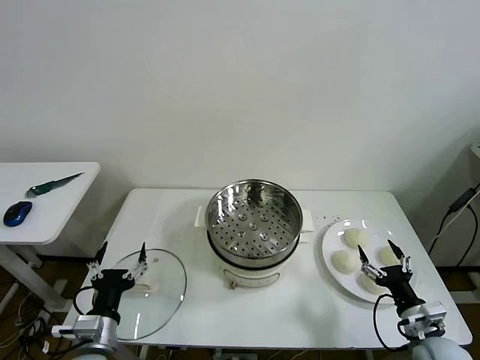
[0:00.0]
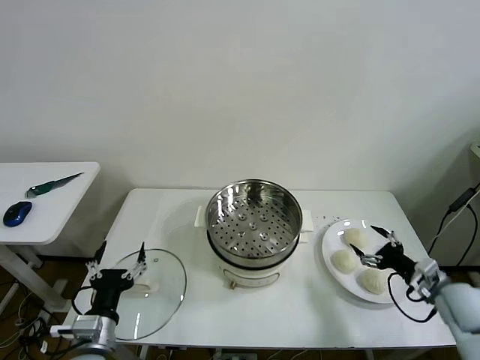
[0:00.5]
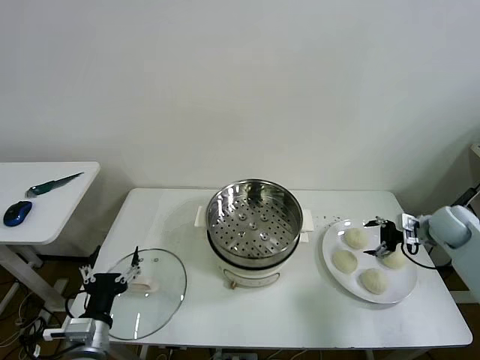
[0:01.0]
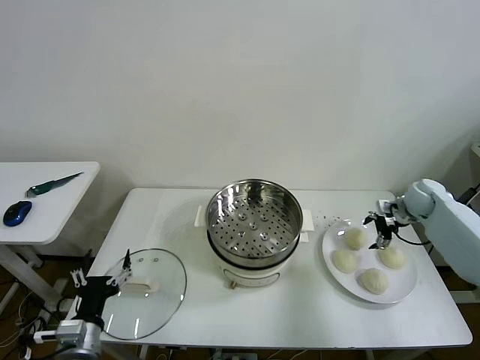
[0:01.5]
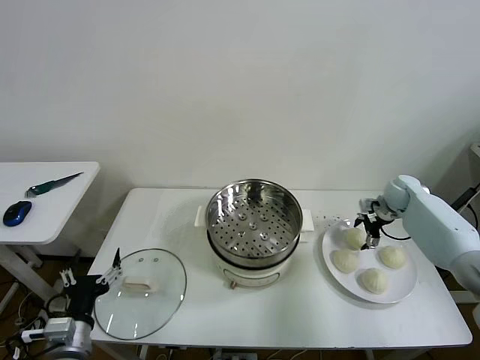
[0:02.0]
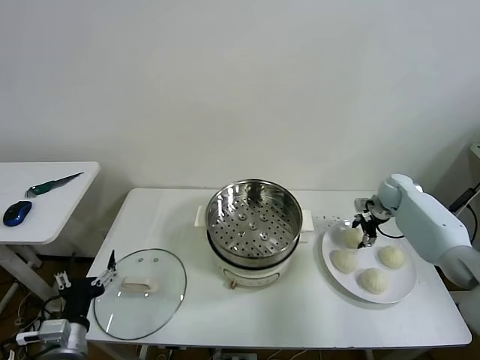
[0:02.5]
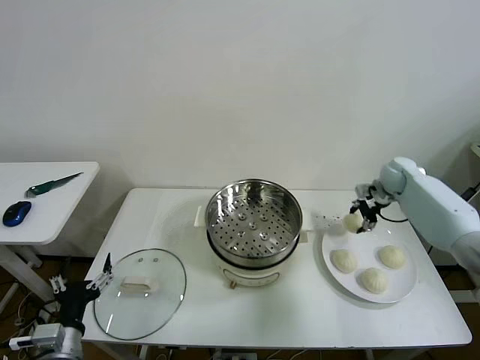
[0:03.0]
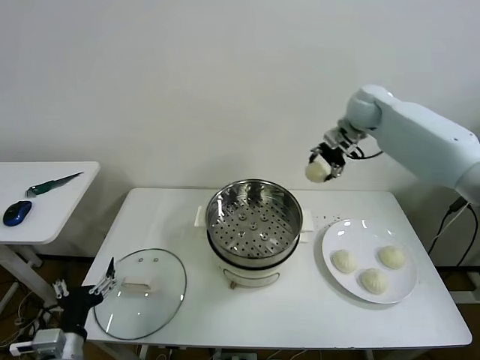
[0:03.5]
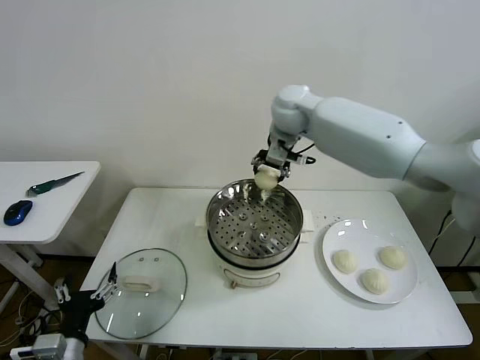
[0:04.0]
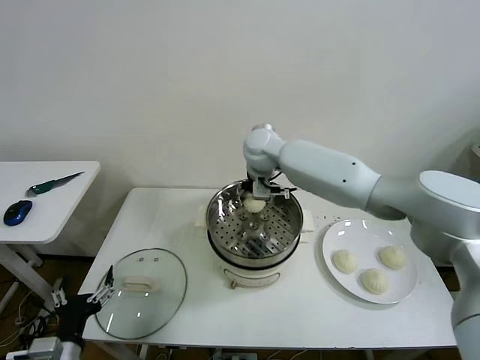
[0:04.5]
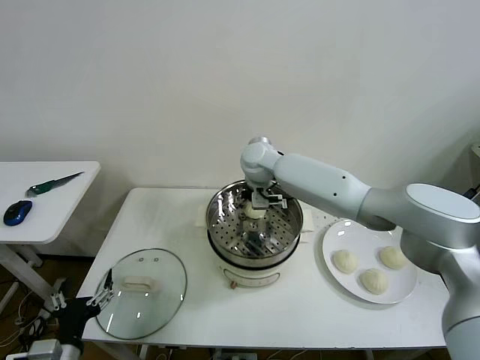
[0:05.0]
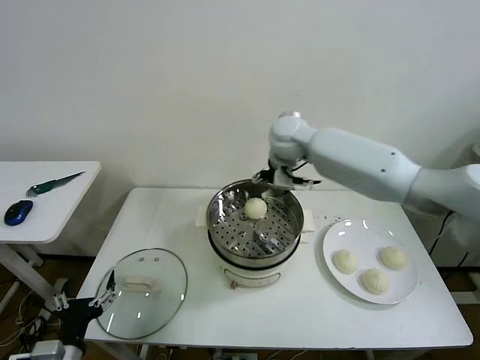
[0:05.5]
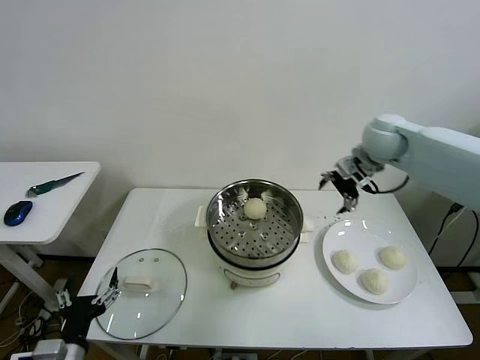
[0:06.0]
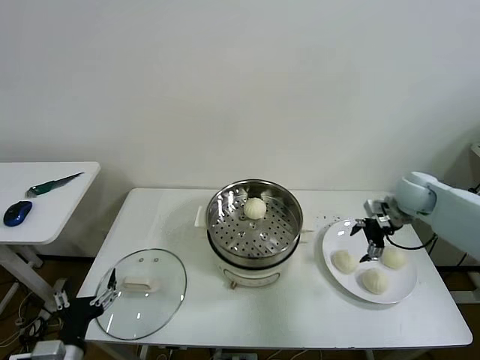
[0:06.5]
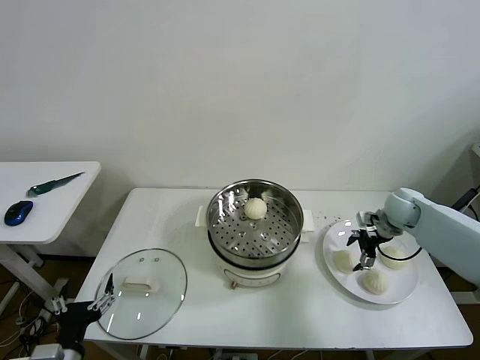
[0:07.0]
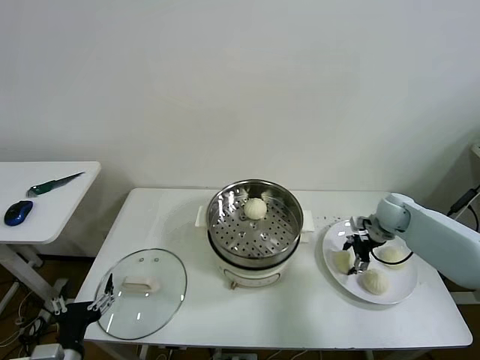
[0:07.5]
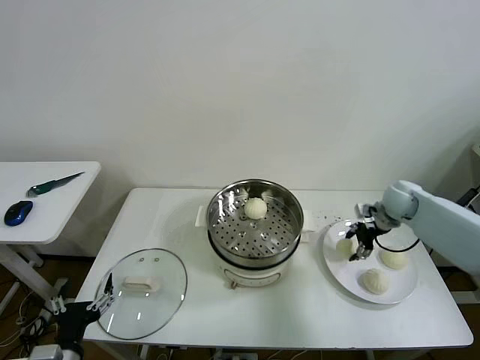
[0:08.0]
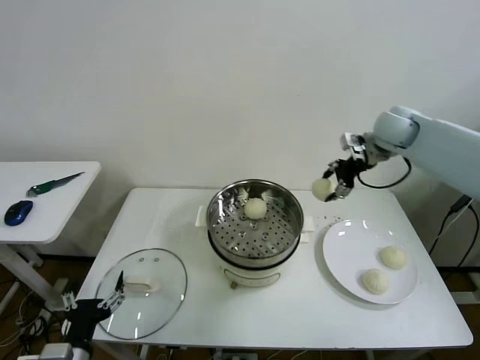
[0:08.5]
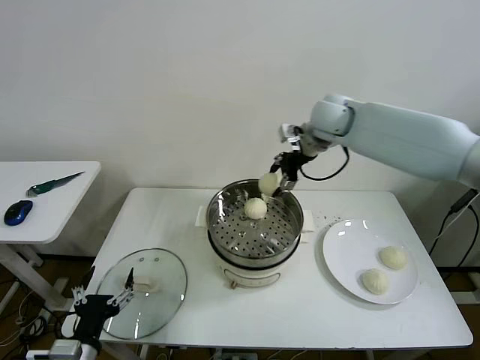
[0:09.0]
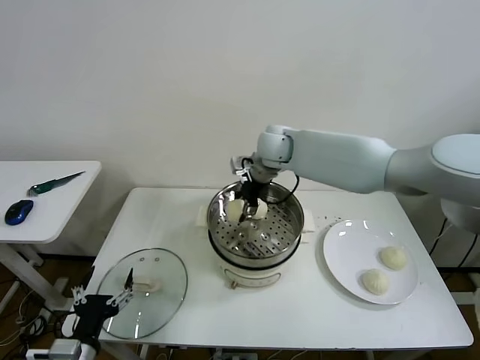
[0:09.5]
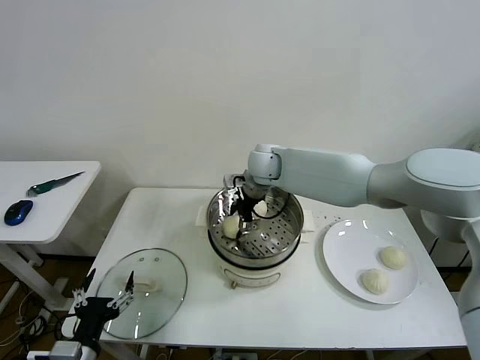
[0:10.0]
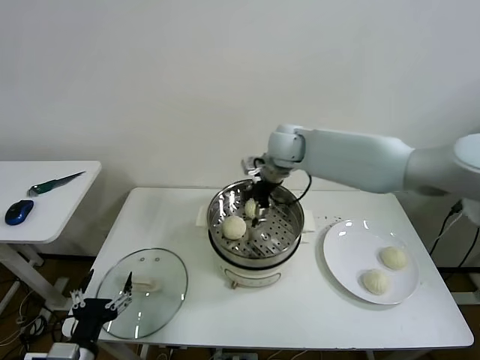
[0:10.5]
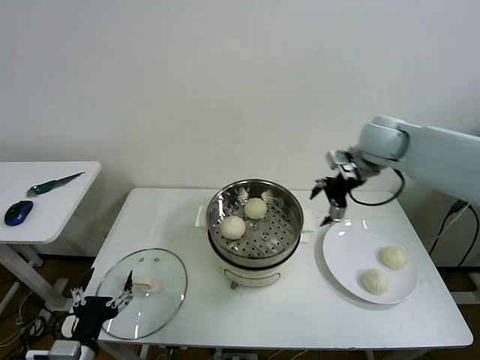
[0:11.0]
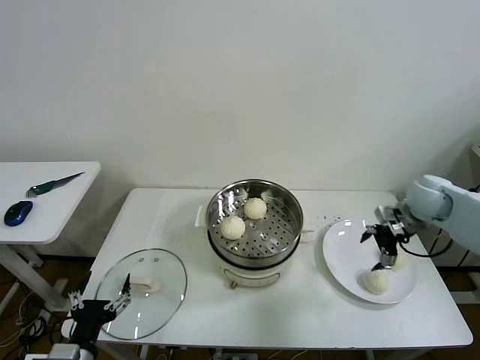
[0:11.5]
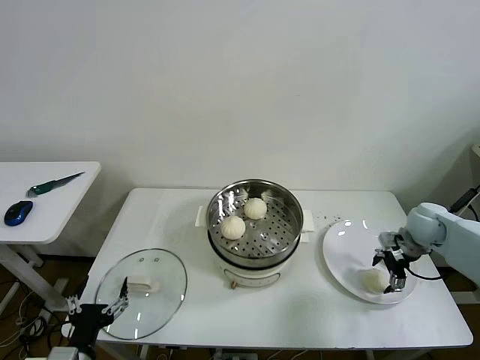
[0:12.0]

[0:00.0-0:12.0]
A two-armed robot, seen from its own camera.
Task of the whole recording: take steamed baozi put them in steamer then cover it.
Step, 0:00.0 to 0:02.0: Grasp the baozi in the plate with right gripper.
Step, 0:02.5 to 0:05.0: Place the baozi on the steamer with right gripper.
Step, 0:05.5 to 0:07.5: Grasp the baozi in the plate with right gripper.
Step, 0:08.0 to 0:10.0: Place the baozi on the steamer with right gripper.
0:02.0 to 0:04.0: The right gripper travels to the left and upward by about 40 cm, and closes.
0:04.0 to 0:06.0: The right gripper travels to the right by some 25 cm, and opens its fingers.
0:06.0 to 0:08.0: The right gripper shifts approximately 15 cm downward and to the right, and closes.
0:08.0 to 0:10.0: The right gripper heads to the left, covering some 35 cm, and opens up.
0:10.0 to 0:12.0: The right gripper is displaced to the right by some 40 cm.

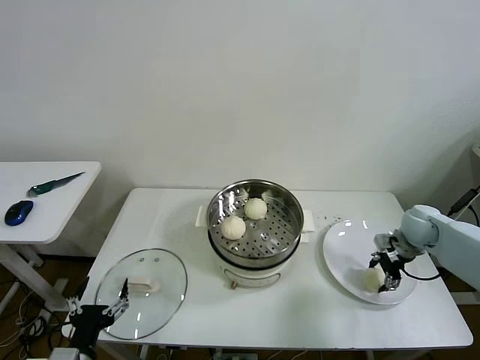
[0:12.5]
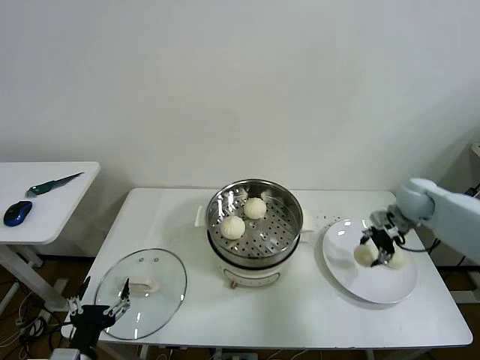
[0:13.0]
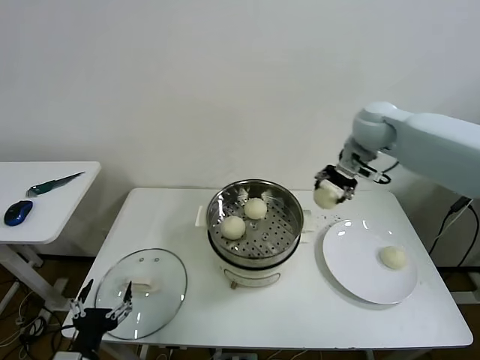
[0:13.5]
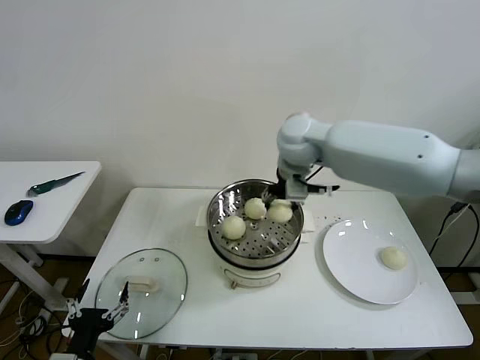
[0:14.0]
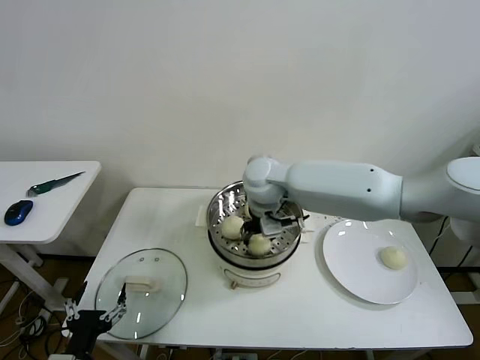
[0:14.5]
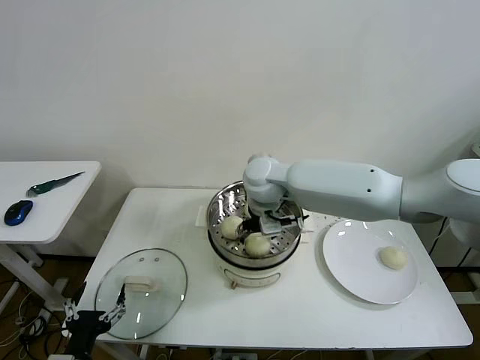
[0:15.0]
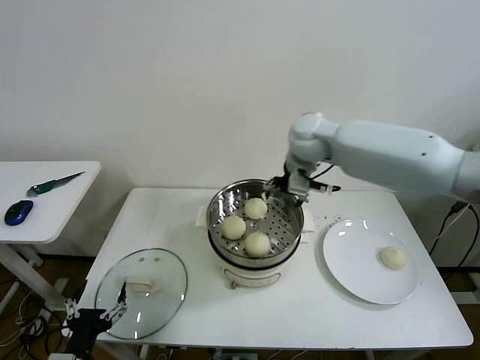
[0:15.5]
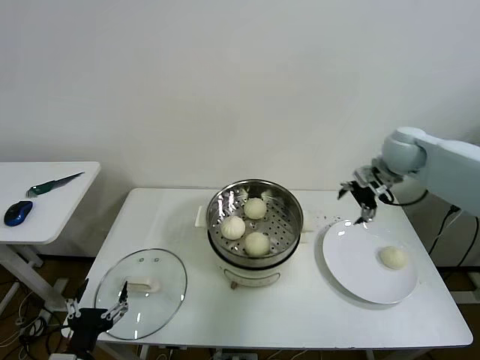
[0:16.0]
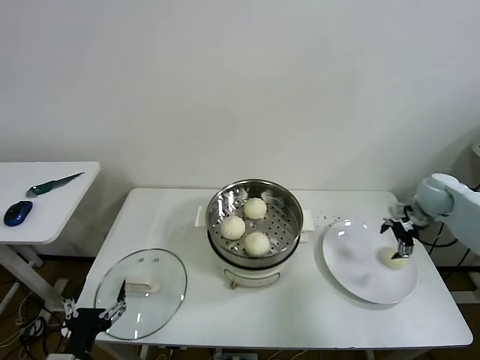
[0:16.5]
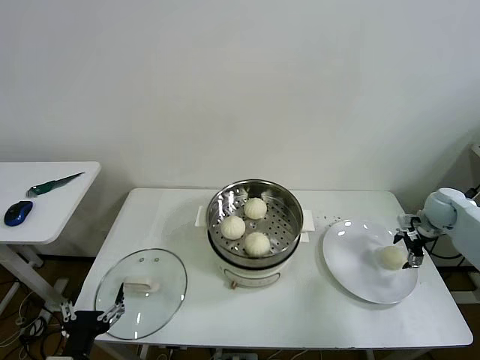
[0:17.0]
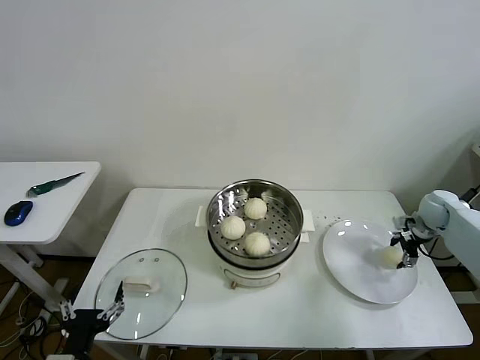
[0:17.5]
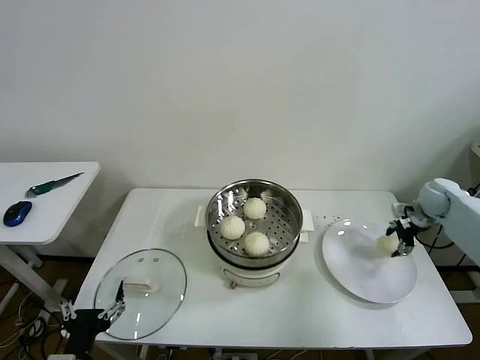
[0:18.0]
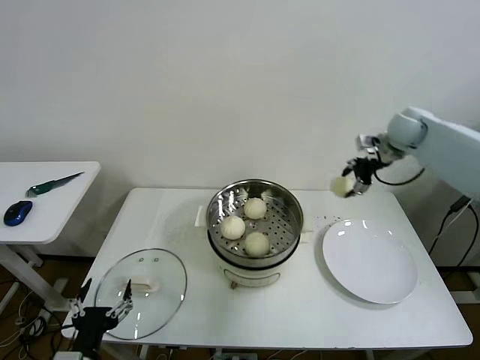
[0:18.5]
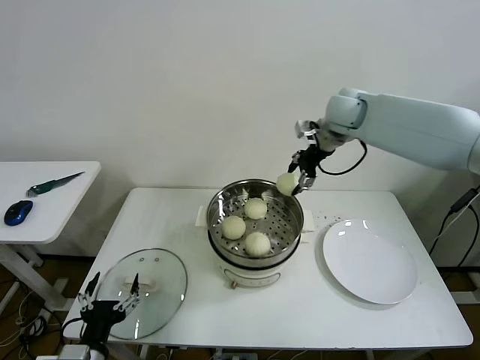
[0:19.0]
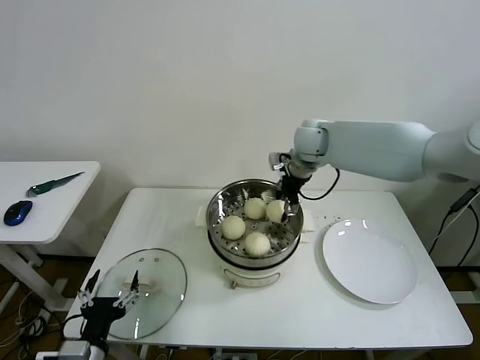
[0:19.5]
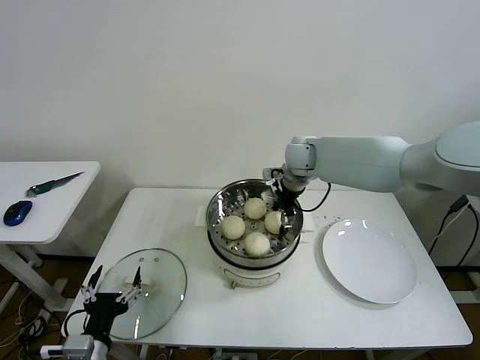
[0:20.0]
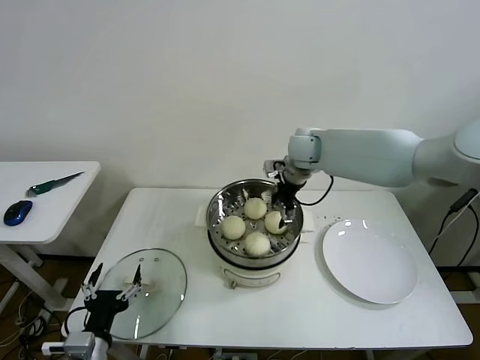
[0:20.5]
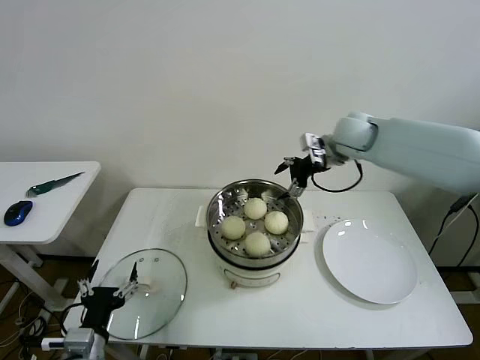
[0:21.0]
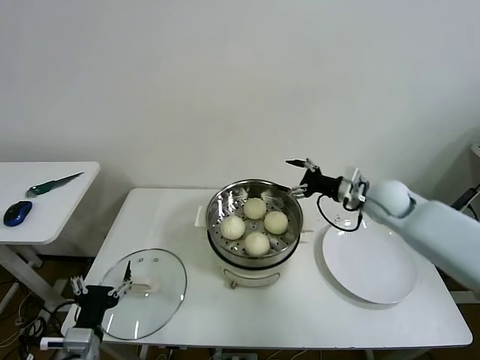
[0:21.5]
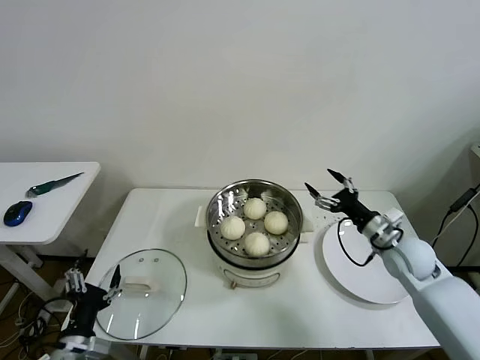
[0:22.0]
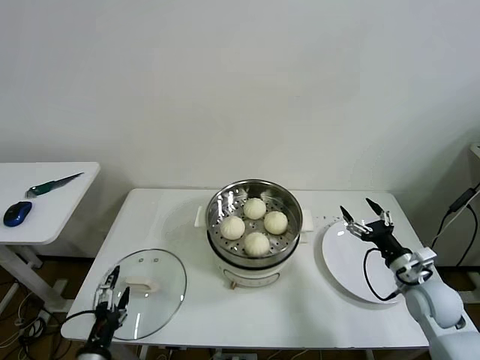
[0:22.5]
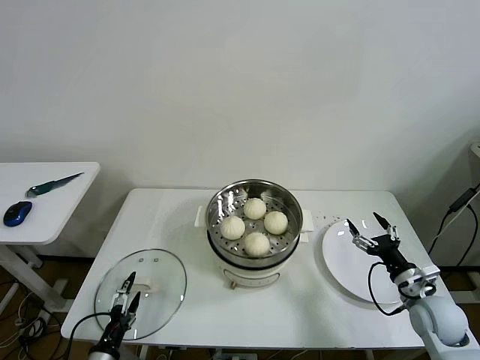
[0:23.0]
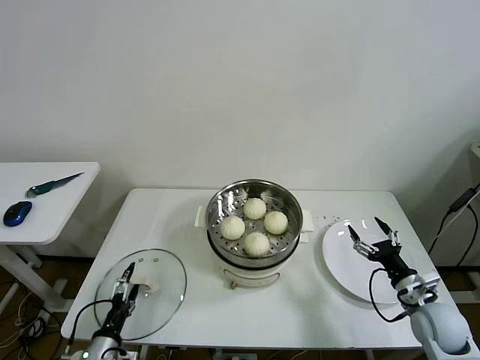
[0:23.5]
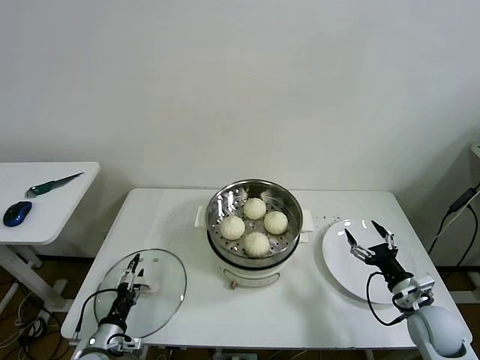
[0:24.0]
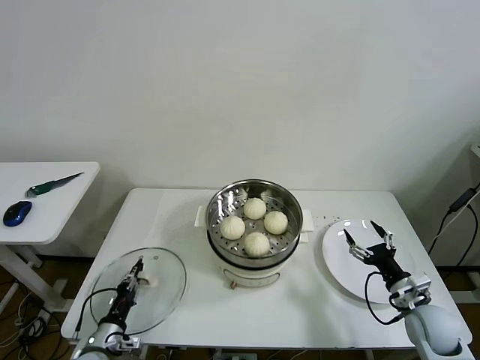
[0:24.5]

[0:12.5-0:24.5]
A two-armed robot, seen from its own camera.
Task of the whole recording: take steamed baozi put them in steamer then cover it.
Step, 0:13.0 to 0:15.0: Place the baozi on the steamer with right gripper.
Step, 0:15.5 to 0:17.5: Grasp the baozi in the plate with right gripper.
Step, 0:18.0 to 0:20.0: Place the baozi on the steamer with right gripper.
0:12.5 to 0:14.5: The right gripper moves to the left, some 40 cm.
0:14.5 to 0:16.5: The right gripper is displaced to the right by about 40 cm, and opens its fingers.
0:16.5 to 0:18.5: The right gripper goes roughly 20 cm upward, to the left and forward, and closes up.
0:18.5 to 0:20.5: The right gripper is displaced to the left by roughly 25 cm, and opens.
0:20.5 to 0:22.5: The right gripper shifts some 40 cm backward, to the right and downward. The left gripper shifts by approximately 5 cm.
0:22.5 to 0:24.5: The right gripper moves roughly 5 cm, while the left gripper travels downward and forward by about 10 cm, and closes up.

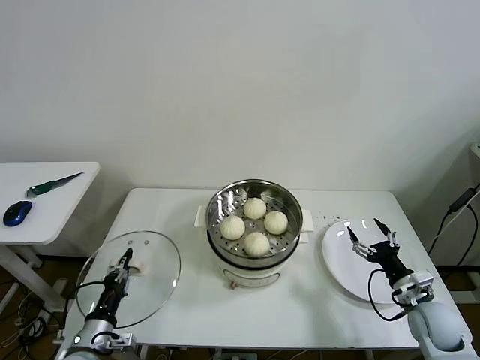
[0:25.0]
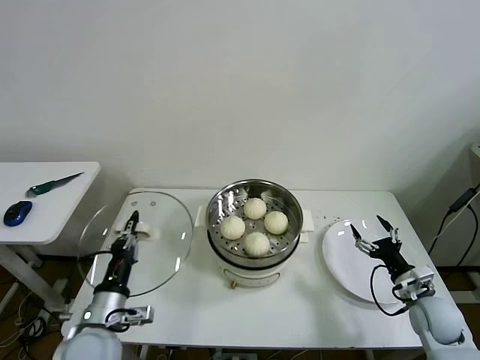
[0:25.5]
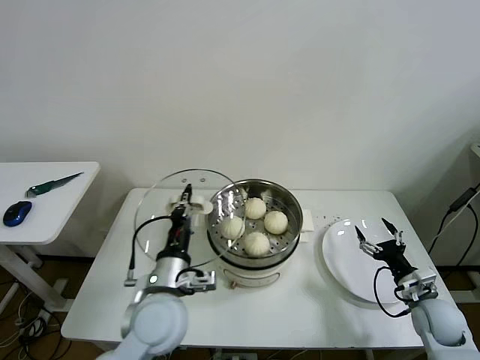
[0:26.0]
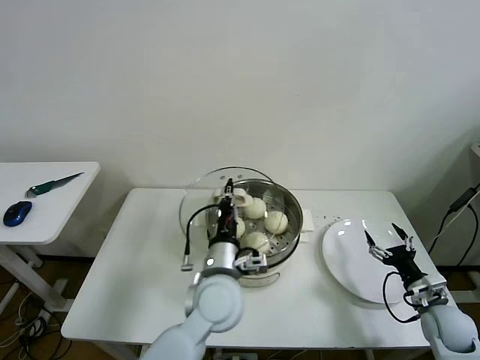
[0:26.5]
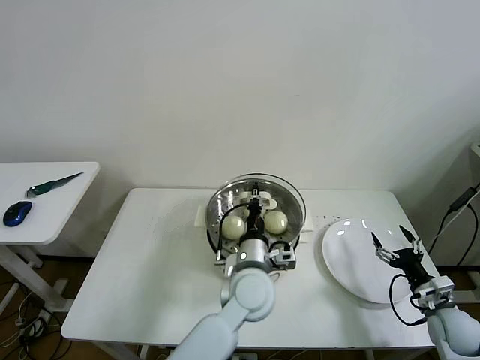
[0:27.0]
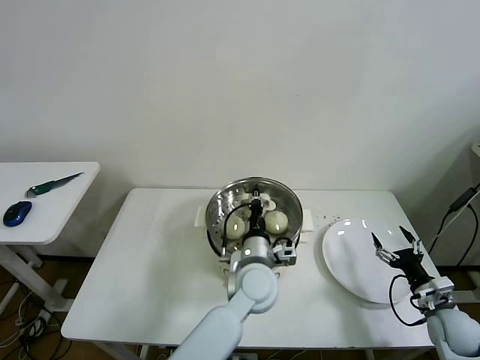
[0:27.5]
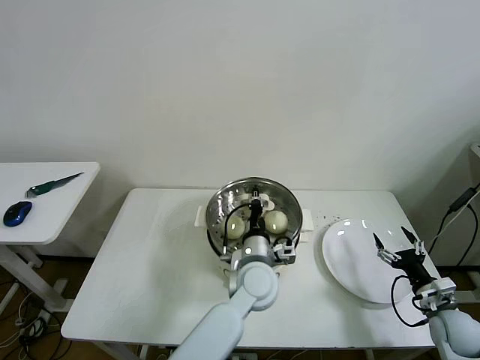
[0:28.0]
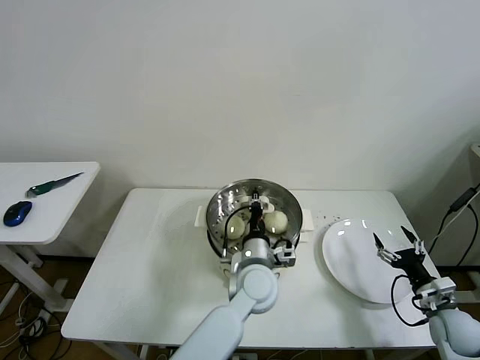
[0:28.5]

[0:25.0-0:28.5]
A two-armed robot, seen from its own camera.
Task of the whole recording: take steamed baozi put them in steamer then cover it.
0:25.0 to 0:27.0: The right gripper travels to the right by roughly 5 cm; the left gripper travels to the right by approximately 35 cm.
0:27.0 to 0:28.5: There are only small adjustments of the grippers.
